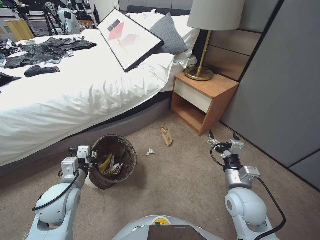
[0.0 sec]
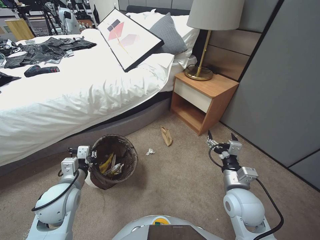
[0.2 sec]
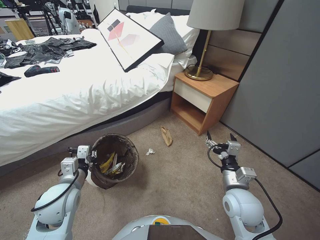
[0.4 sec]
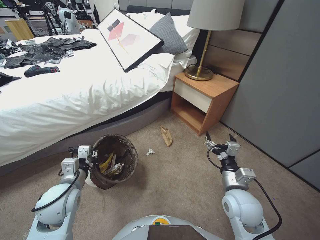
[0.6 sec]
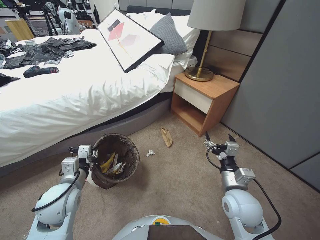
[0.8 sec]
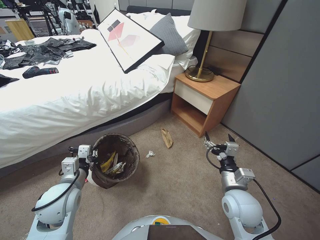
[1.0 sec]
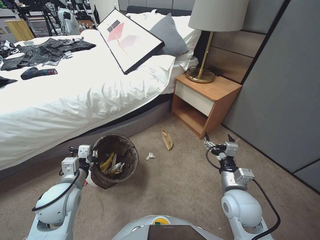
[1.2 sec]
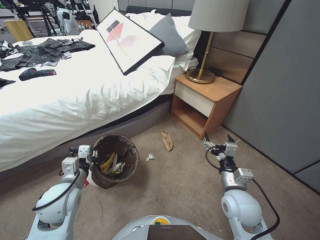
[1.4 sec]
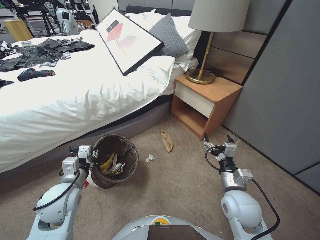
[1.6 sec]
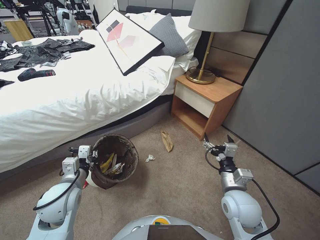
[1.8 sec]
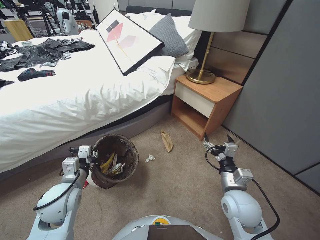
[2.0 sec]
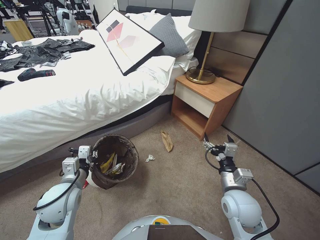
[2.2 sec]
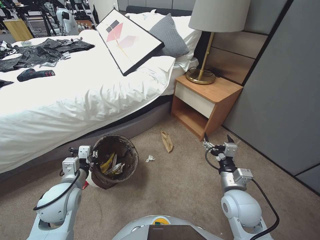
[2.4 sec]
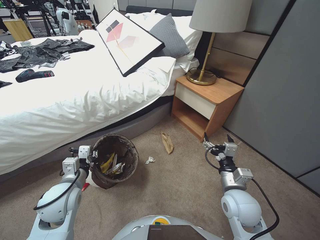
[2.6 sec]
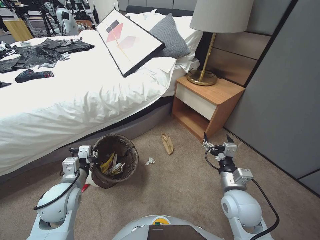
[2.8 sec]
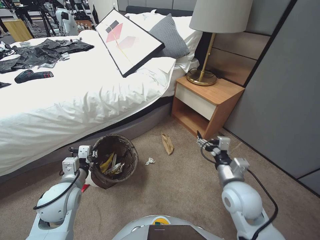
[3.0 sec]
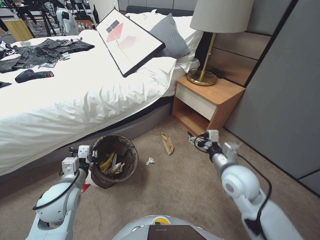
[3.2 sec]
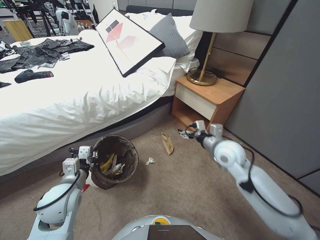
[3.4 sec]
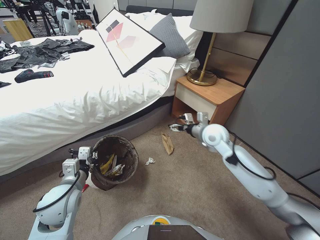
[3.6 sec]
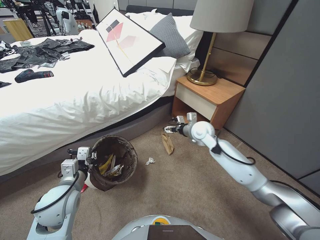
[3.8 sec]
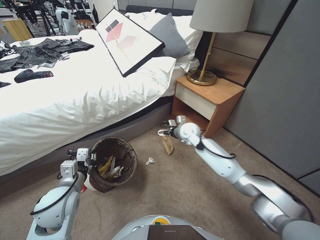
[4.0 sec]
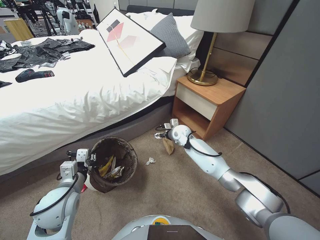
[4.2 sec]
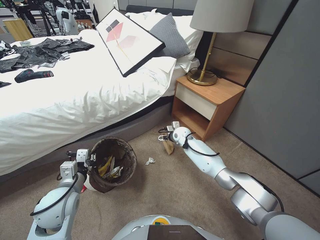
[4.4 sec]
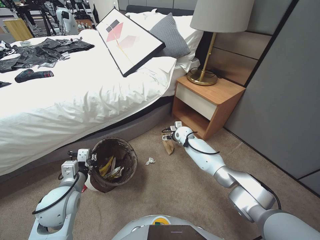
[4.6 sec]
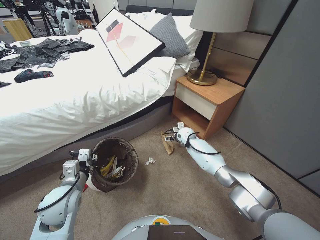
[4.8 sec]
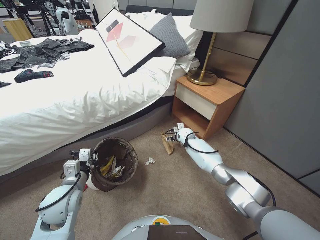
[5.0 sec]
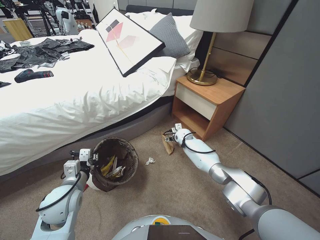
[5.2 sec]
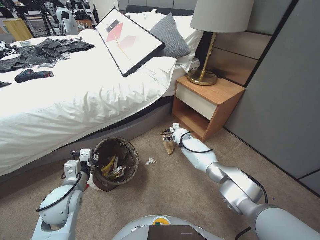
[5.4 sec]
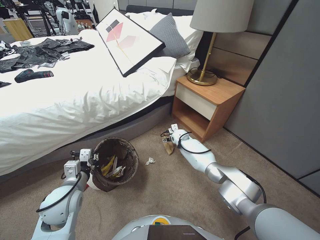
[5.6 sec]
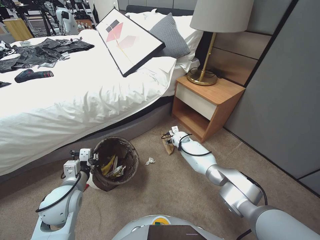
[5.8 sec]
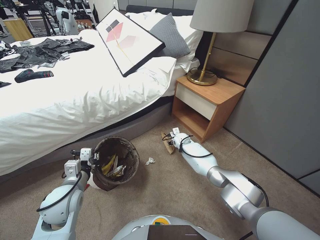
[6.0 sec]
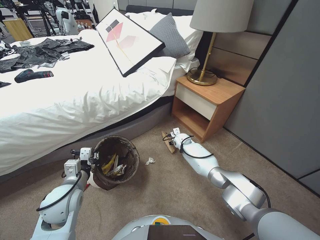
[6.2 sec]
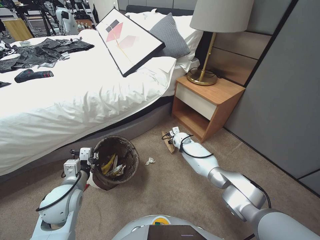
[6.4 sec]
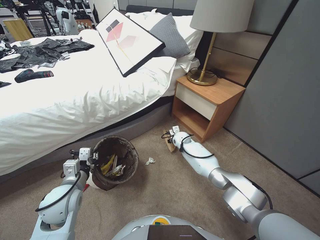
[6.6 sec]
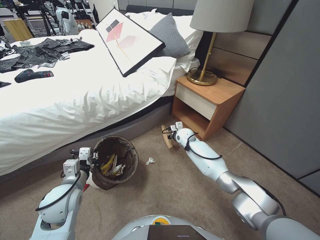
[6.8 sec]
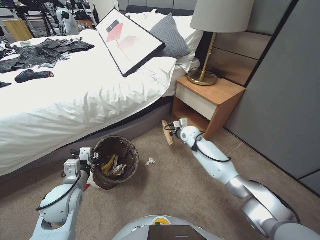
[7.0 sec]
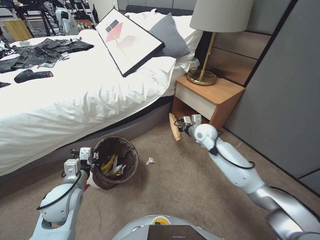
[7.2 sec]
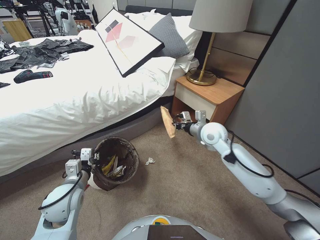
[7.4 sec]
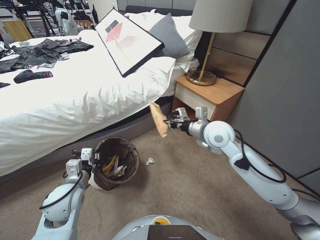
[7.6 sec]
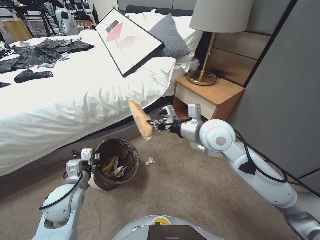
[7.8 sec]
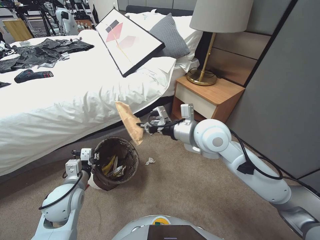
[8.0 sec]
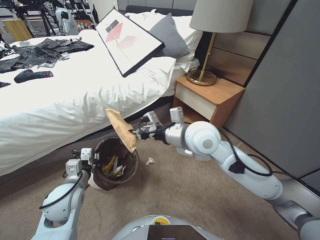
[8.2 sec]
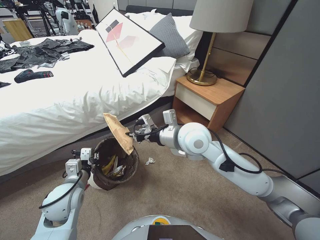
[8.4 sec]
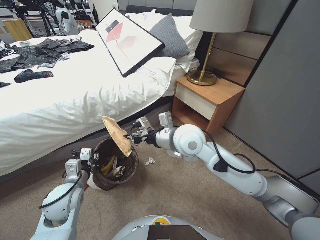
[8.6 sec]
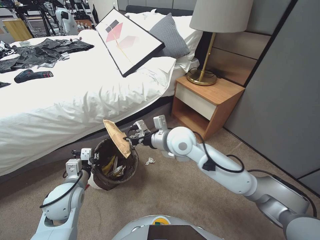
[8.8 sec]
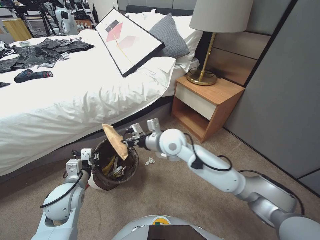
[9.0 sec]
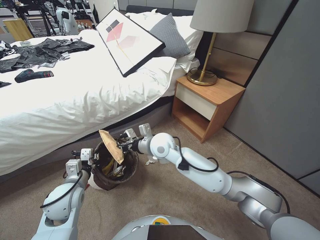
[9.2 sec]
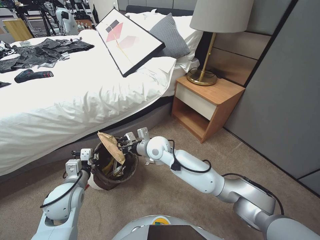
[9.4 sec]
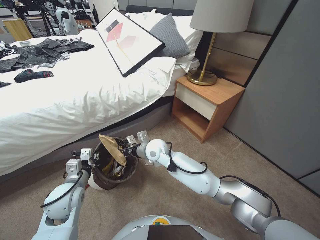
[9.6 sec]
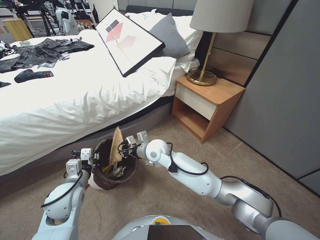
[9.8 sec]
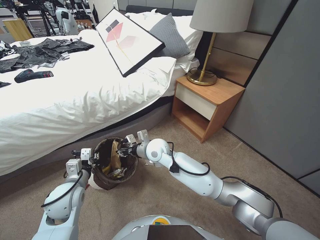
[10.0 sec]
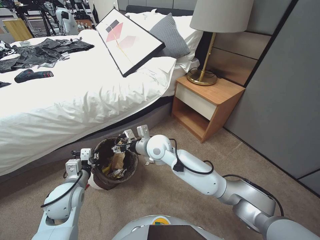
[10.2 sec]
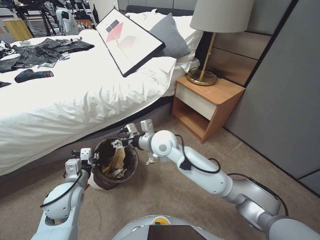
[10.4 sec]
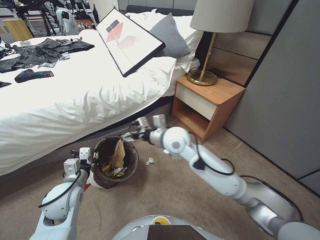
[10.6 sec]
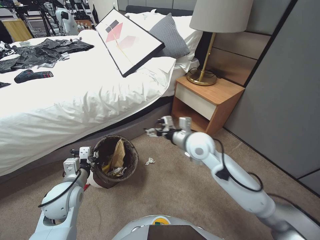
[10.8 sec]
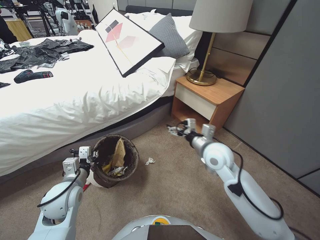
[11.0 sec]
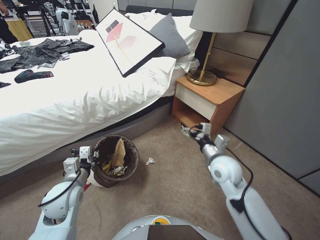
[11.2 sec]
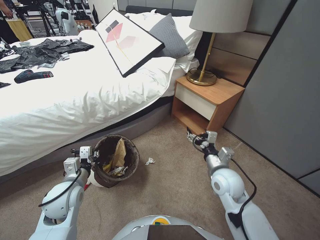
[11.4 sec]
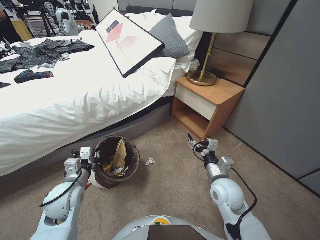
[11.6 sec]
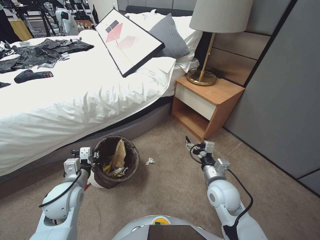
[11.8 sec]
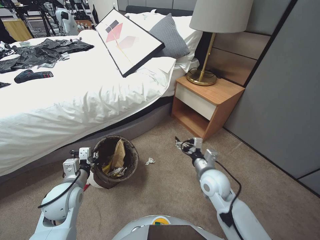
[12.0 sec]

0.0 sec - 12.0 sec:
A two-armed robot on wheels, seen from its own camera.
Task of the whole recording: Pick up the trash bin, then pick up the garbage from the floor and place it into the trash bin.
1.6 sec - 3.0 sec: Both grippers stay about where they are.
3.0 sec - 4.4 sec: The right gripper travels forward by some 30 cm.
4.4 sec - 6.0 sec: The right gripper moves downward, approximately 10 cm.
6.0 sec - 7.6 sec: The right gripper travels upward and backward by roughly 30 cm, and closes.
7.6 sec - 9.0 sec: The right gripper is displaced to the left by roughly 15 cm.
9.0 sec - 10.4 sec: The right gripper reaches about 10 cm downward, then returns, and opens its fingers.
10.4 sec - 12.0 sec: The right gripper is displaced to the right, backward and downward by about 25 cm.

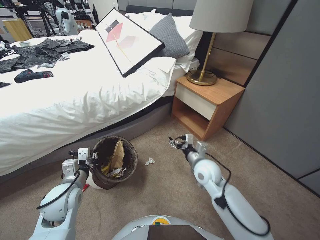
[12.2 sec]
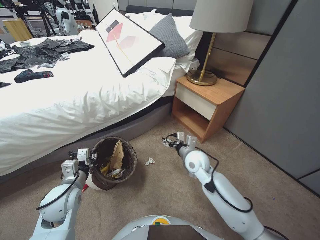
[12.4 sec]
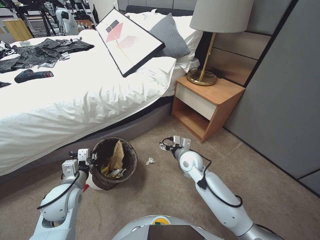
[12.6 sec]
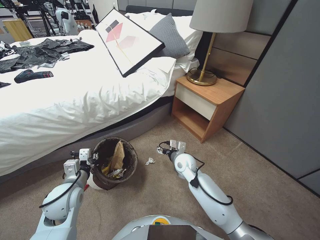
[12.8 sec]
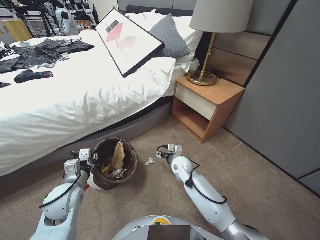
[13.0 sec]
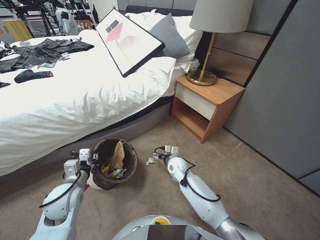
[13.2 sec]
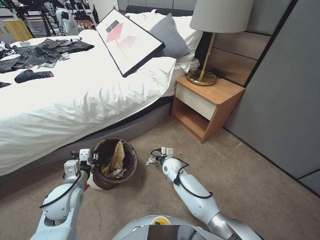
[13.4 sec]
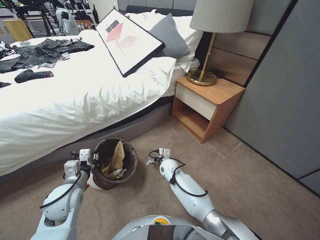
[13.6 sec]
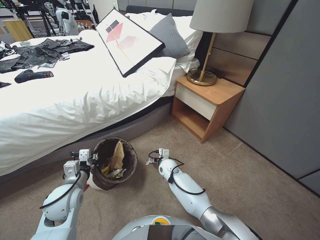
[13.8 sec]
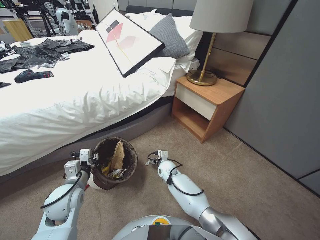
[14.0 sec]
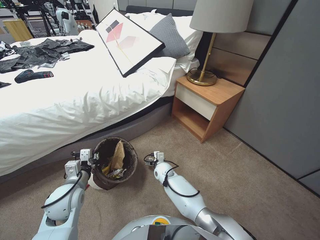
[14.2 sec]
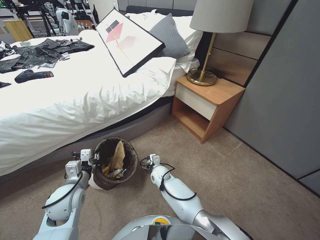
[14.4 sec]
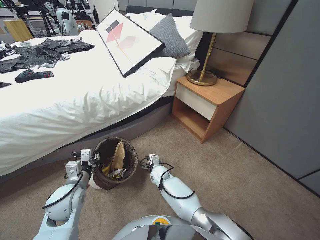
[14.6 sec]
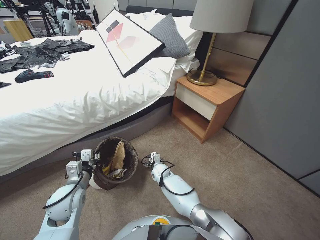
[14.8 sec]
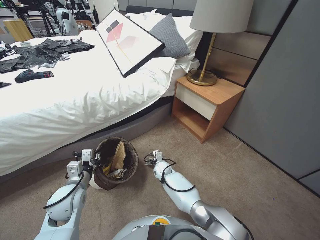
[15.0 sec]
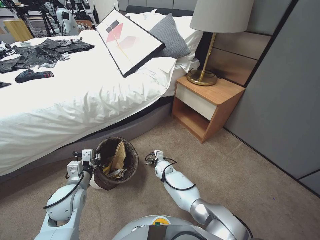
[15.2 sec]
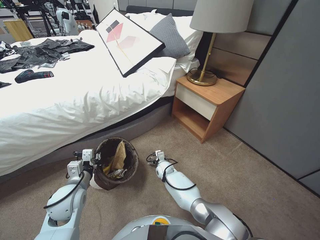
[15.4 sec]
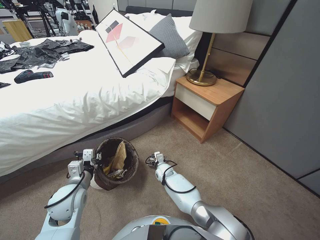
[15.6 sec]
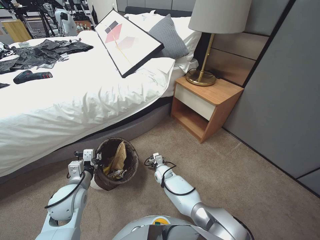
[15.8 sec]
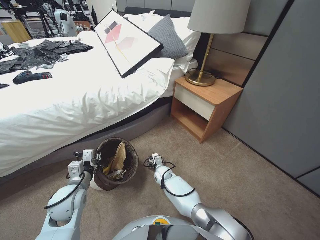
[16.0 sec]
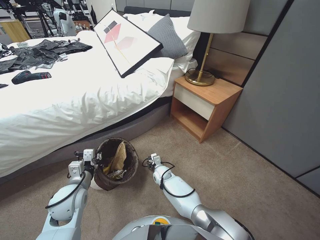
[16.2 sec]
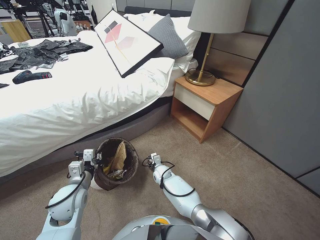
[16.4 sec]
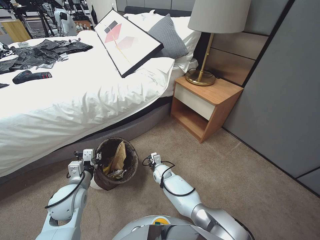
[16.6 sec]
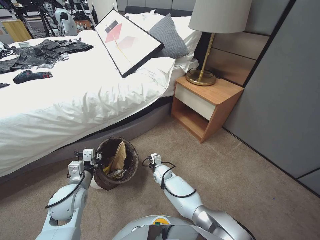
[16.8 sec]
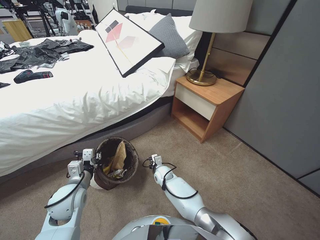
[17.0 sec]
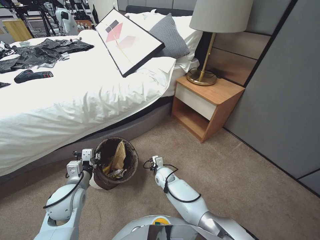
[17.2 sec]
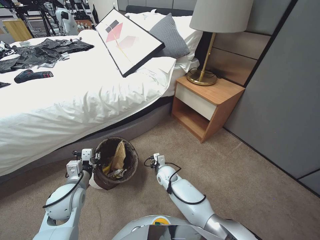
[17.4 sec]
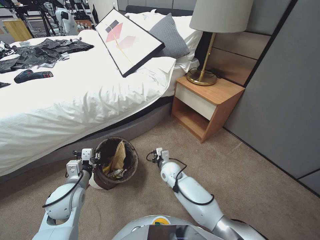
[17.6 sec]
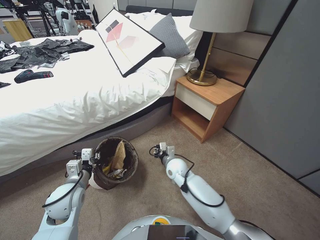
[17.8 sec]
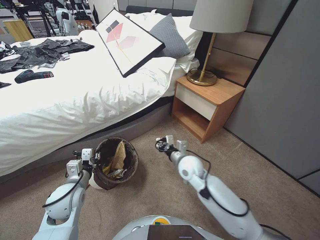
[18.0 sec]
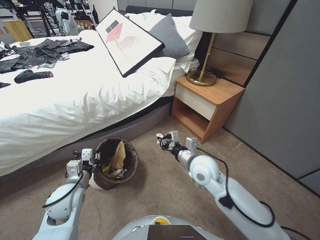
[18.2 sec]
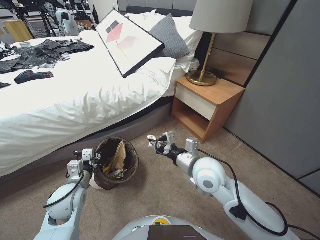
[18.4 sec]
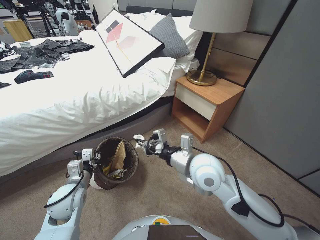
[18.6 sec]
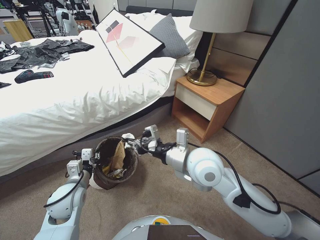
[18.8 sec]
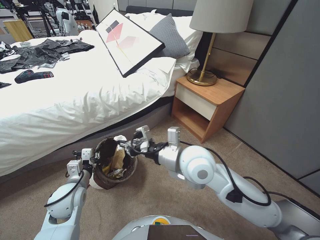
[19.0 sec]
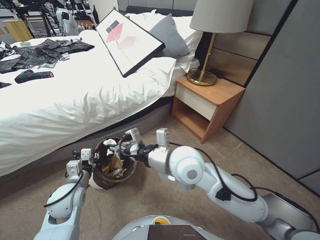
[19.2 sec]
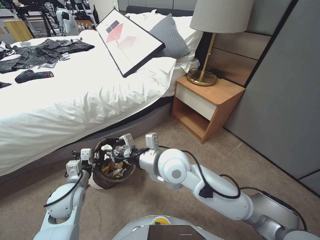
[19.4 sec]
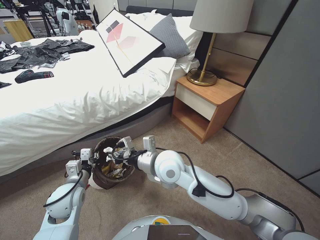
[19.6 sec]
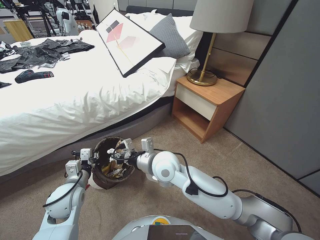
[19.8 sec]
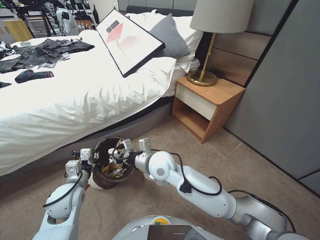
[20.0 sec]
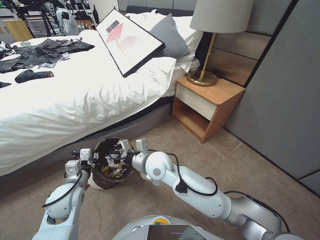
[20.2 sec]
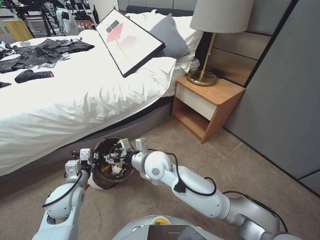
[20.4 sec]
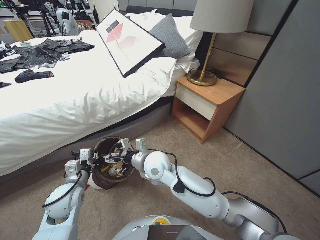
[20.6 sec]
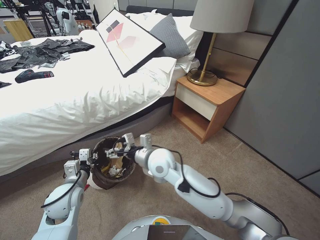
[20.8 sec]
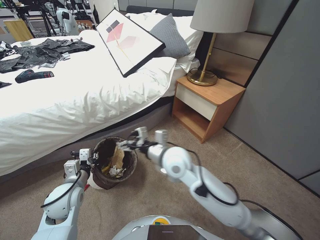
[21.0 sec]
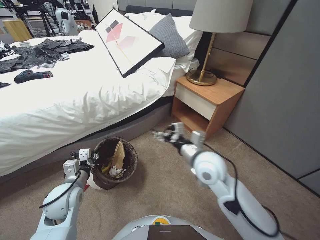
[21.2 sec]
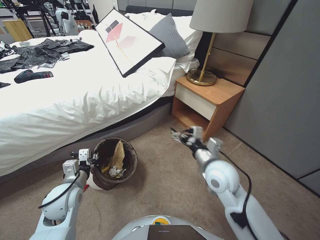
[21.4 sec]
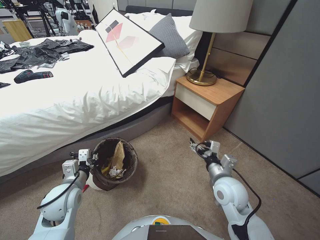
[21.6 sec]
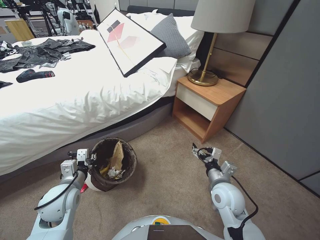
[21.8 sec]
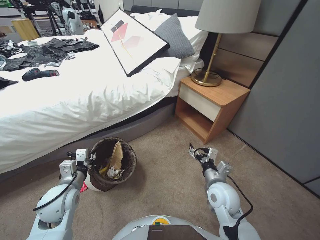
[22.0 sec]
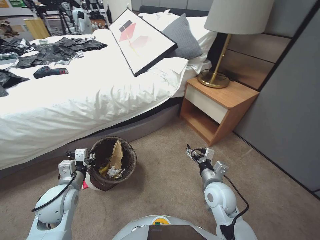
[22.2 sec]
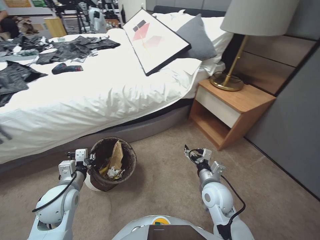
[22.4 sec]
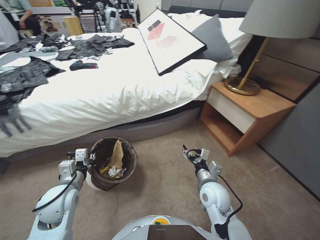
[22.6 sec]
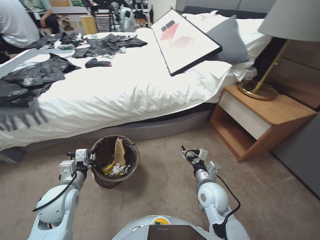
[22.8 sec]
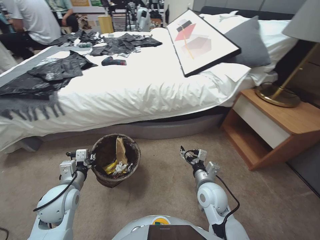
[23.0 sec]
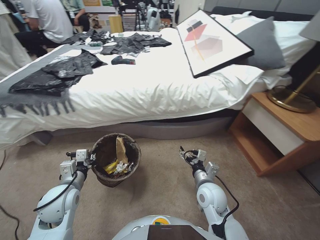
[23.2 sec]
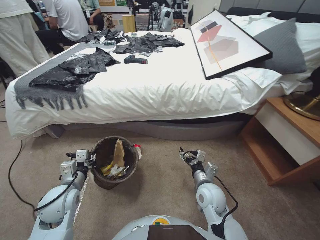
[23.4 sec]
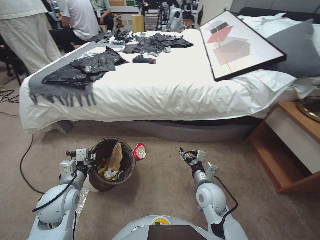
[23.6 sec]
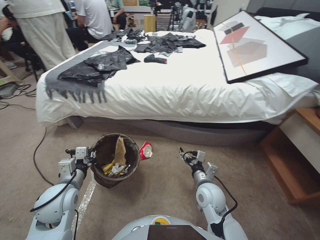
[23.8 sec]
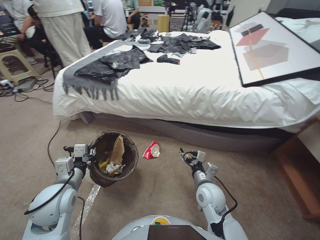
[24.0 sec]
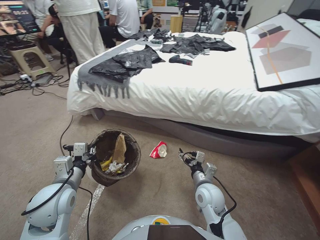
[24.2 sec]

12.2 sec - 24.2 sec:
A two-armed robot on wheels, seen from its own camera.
Task of the whole recording: Pick up the trash bin, then pick up the garbage from the floor and place it into the trash bin.
12.2 sec - 13.8 sec: The right gripper travels downward, to the left and forward by some 25 cm.
13.8 sec - 15.2 sec: The right gripper shifts by roughly 5 cm.
15.2 sec - 16.6 sec: The right gripper closes.
16.6 sec - 18.2 sec: The right gripper goes about 30 cm upward and to the right, and closes.
18.2 sec - 19.8 sec: The right gripper shifts about 15 cm to the left and upward.
19.8 sec - 21.2 sec: The right gripper travels to the right by some 10 cm, and opens up.
21.2 sec - 22.6 sec: The right gripper travels downward, to the right and backward by some 20 cm.
